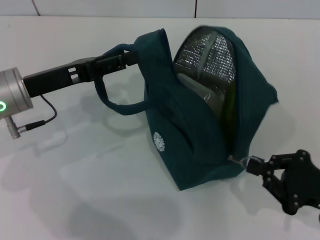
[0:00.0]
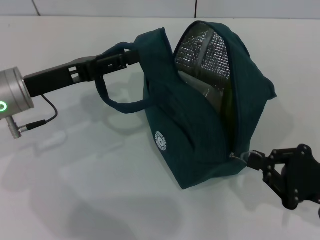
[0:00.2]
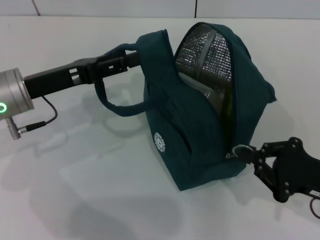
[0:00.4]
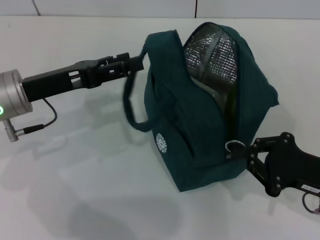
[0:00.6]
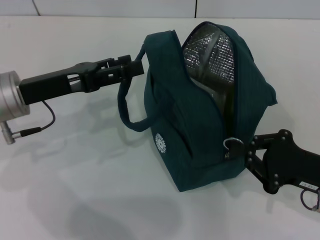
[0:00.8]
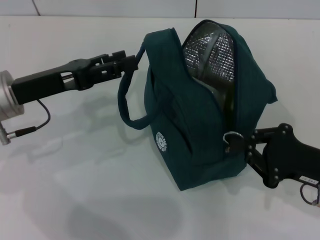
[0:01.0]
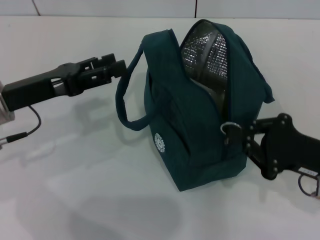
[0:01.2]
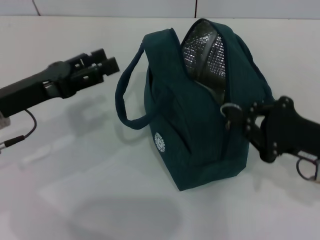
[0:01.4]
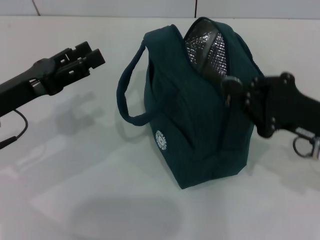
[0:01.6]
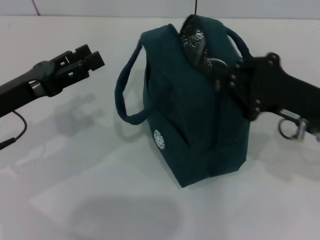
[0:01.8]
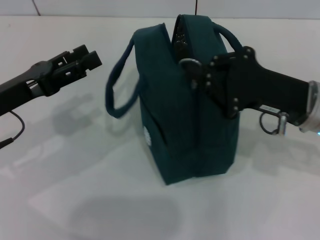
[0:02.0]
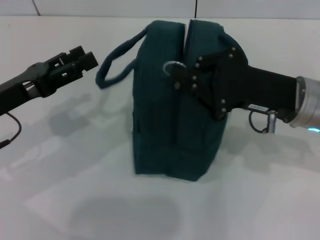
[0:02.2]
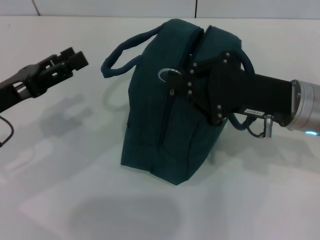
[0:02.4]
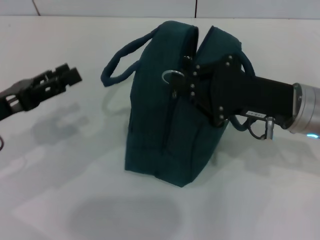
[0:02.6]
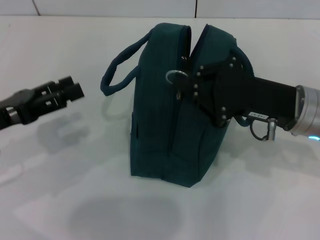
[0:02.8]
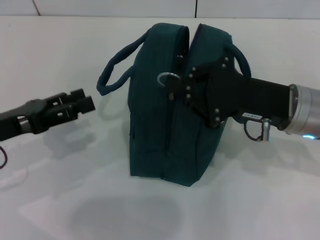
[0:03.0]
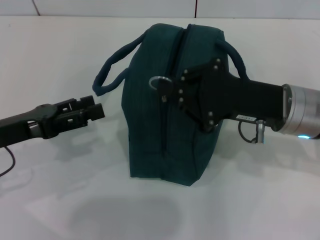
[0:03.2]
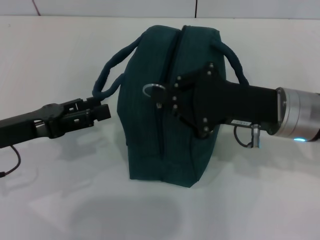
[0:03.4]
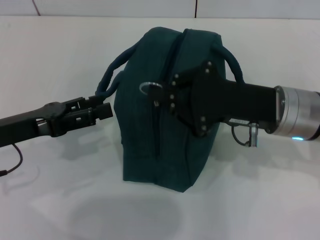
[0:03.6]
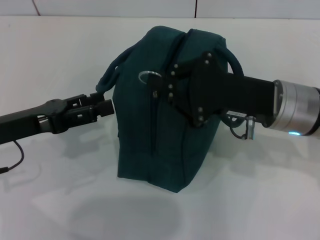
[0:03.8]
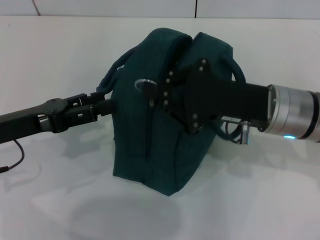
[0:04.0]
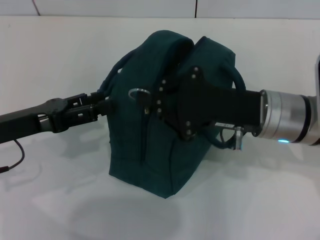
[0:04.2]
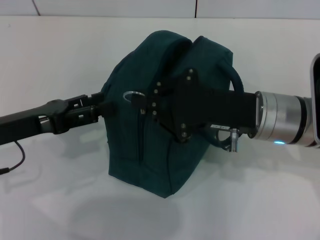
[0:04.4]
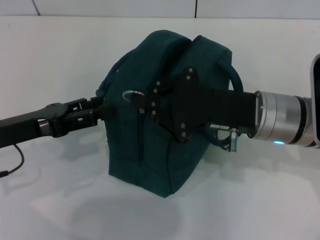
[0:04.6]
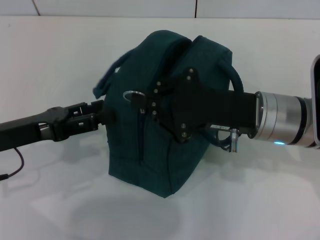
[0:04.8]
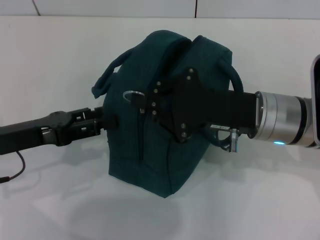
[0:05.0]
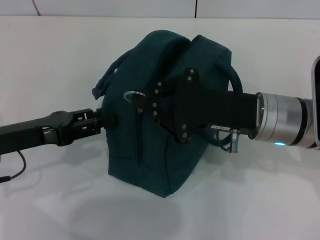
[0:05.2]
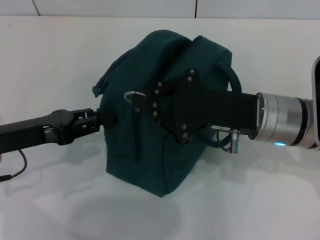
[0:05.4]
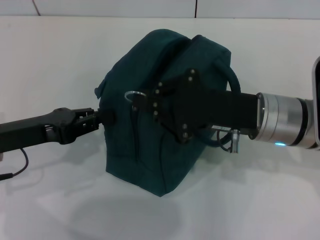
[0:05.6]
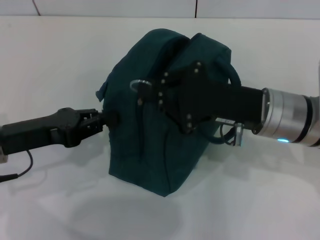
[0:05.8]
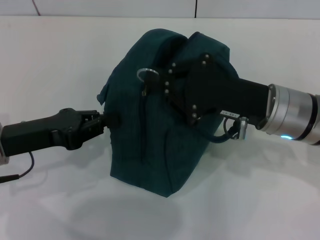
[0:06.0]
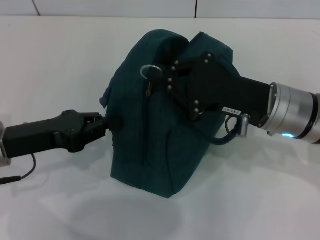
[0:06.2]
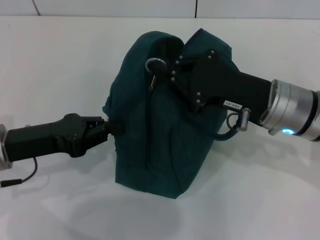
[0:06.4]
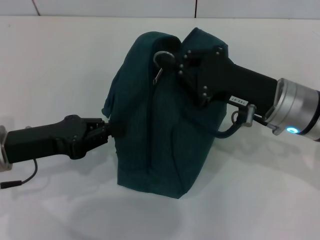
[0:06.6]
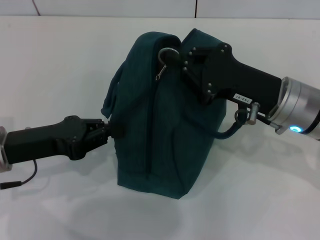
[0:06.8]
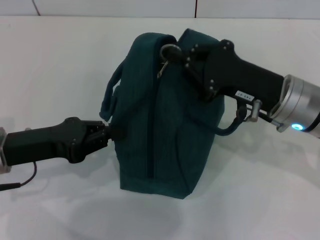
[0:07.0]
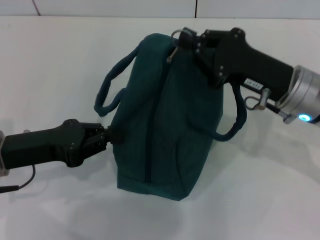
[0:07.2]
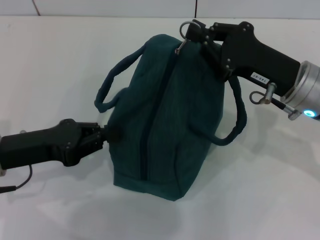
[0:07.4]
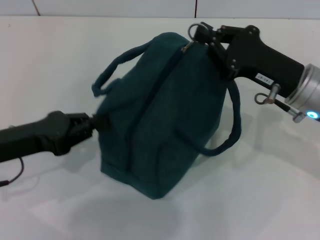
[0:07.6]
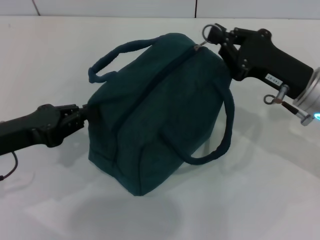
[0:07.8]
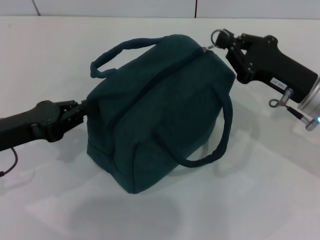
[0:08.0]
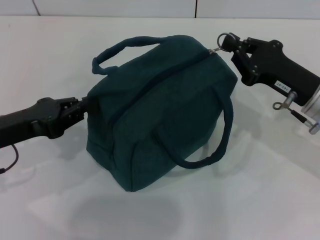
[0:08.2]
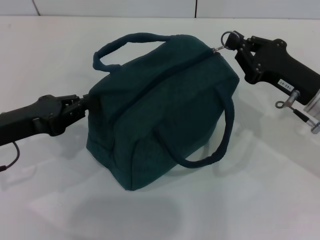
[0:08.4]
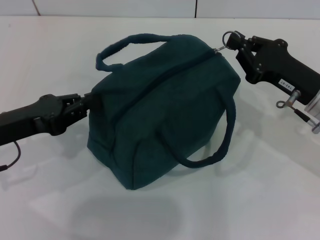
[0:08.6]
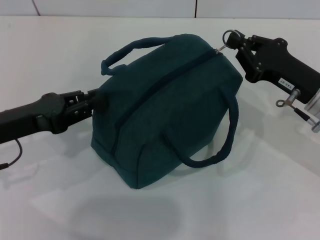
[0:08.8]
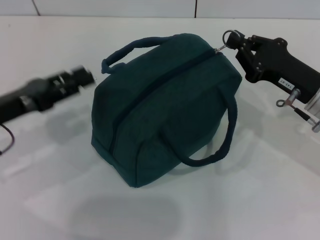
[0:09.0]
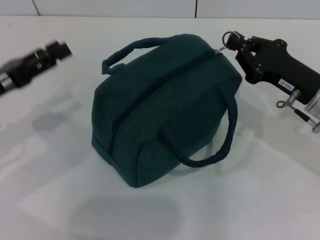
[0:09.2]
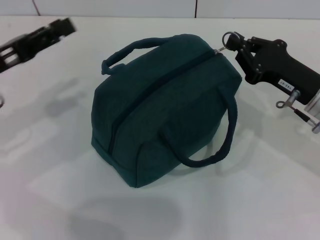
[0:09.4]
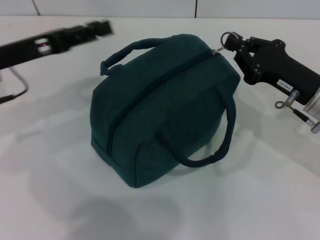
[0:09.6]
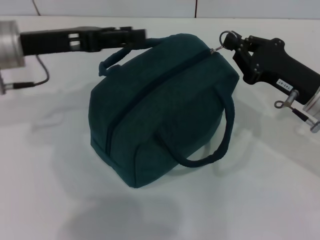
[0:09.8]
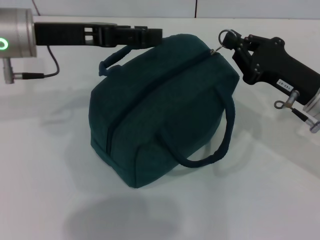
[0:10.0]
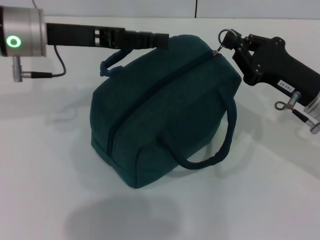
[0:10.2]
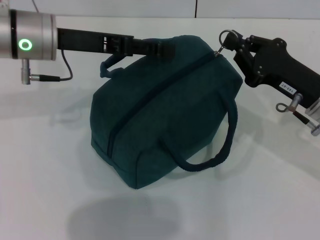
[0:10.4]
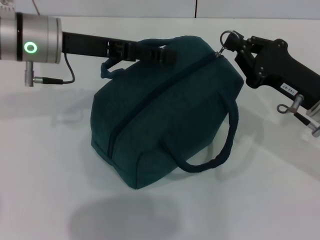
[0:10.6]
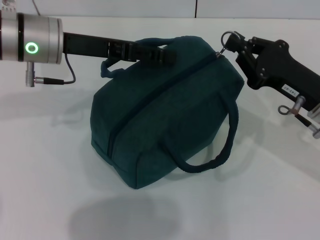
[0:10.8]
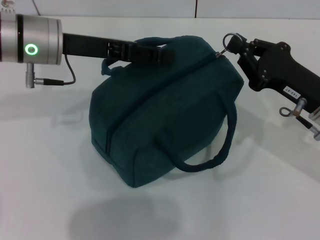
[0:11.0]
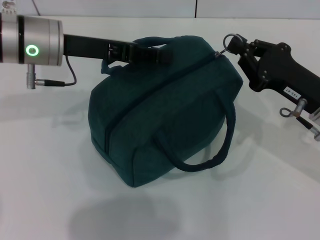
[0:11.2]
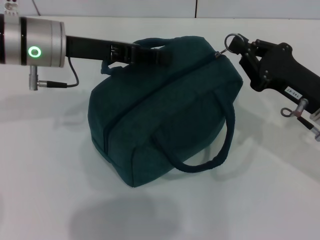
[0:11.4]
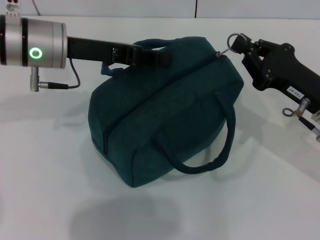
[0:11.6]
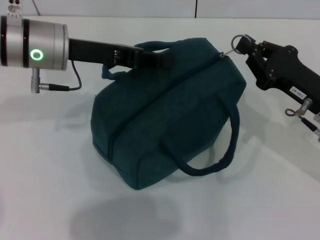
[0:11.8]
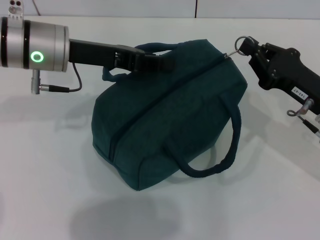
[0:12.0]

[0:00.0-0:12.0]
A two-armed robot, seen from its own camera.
0:00.0 to 0:01.6: The left gripper shifts by roughly 5 cm; the right gripper heads forward and upward, covering some 10 cm.
0:01.6 to 0:03.0: The right gripper goes roughly 5 cm to the left.
0:03.0 to 0:04.4: The grippers make only small movements.
0:04.4 to 0:06.0: The left gripper closes up.
0:06.0 to 0:07.6: The right gripper changes place by roughly 5 cm.
0:07.6 to 0:09.0: The left gripper opens.
0:09.0 to 0:10.4: The left gripper is displaced forward, to the right and upward by some 15 cm, and opens.
0:10.4 to 0:12.0: The left gripper closes up.

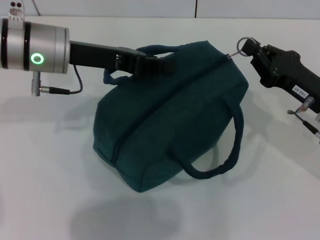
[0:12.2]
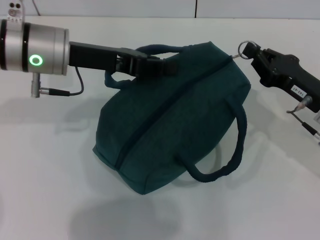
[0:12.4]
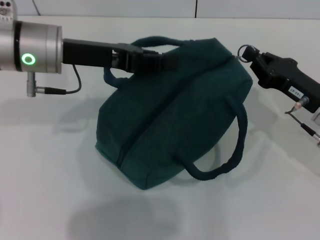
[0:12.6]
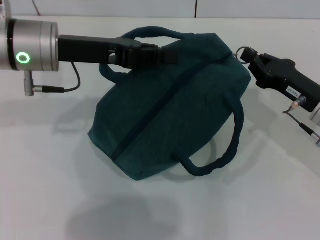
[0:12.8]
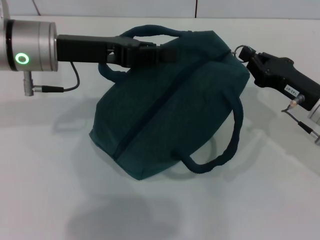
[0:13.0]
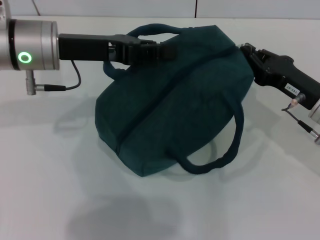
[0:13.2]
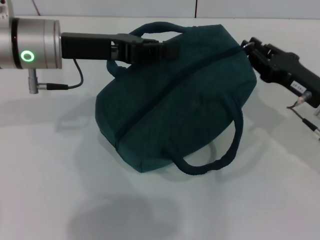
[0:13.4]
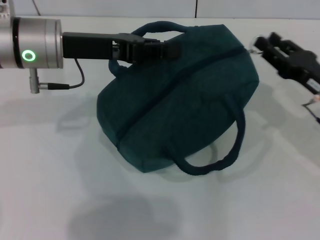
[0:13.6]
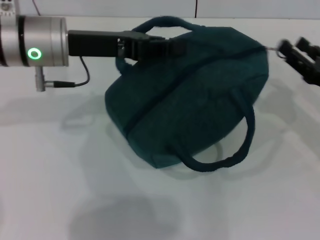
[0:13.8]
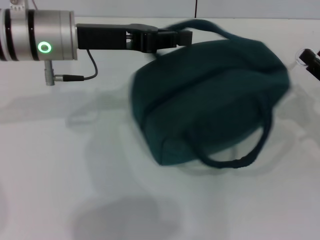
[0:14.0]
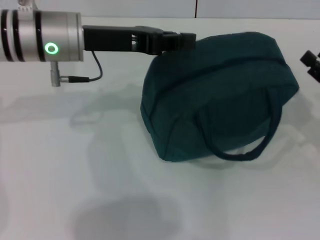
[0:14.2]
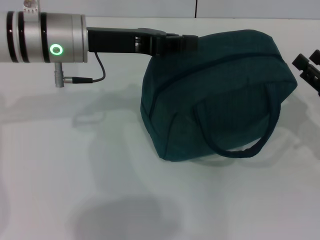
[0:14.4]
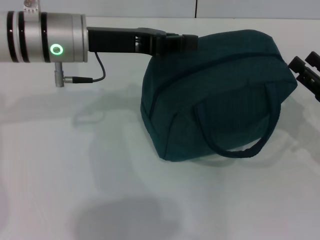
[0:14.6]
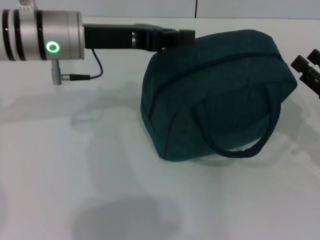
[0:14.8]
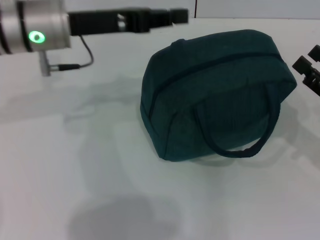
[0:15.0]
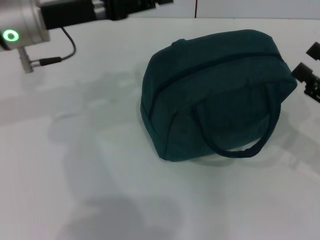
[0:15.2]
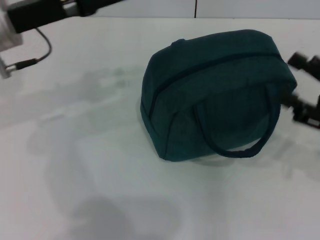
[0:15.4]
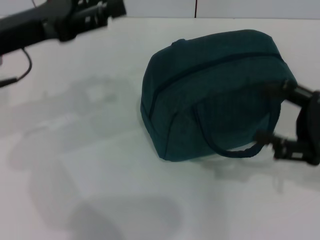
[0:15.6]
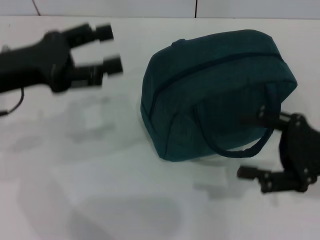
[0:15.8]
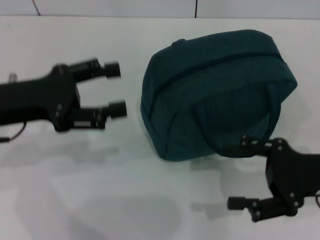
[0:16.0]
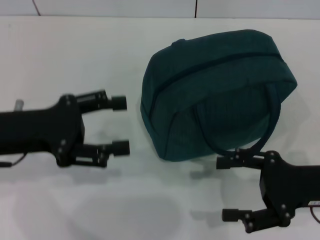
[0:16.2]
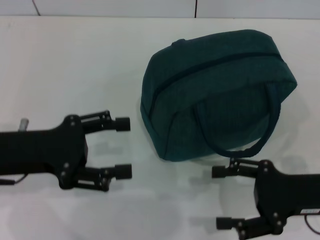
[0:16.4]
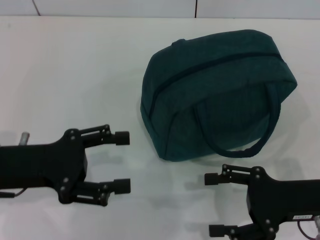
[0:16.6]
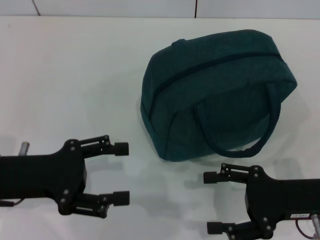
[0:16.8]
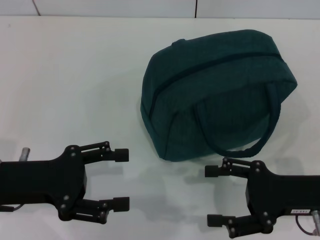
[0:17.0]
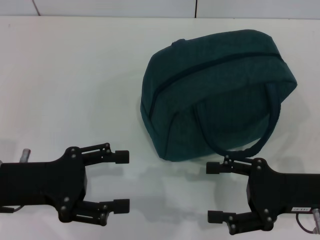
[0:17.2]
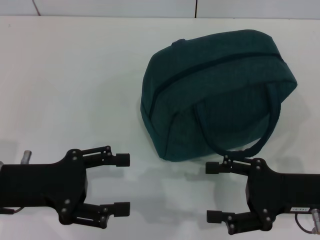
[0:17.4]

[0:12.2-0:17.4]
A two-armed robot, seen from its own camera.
Step, 0:14.2 to 0:14.8: Hold the lunch bag with your left hand.
0:12.2 to 0:14.0: The right gripper travels to the right by roughly 10 cm, and opens.
0:14.0 to 0:15.6: The left gripper goes roughly 10 cm to the left, and opens. The right gripper moves about 5 cm.
0:15.6 to 0:17.4: The left gripper is displaced backward and downward by about 15 cm, and opens; the right gripper ends up about 5 cm from where it was.

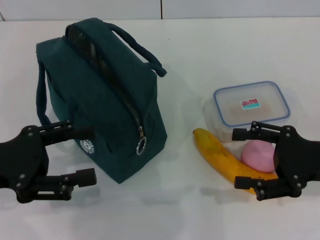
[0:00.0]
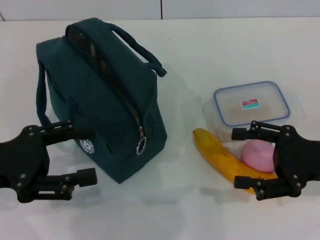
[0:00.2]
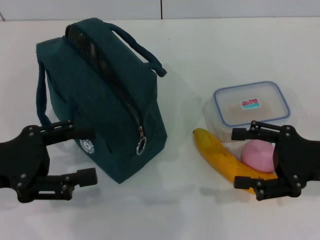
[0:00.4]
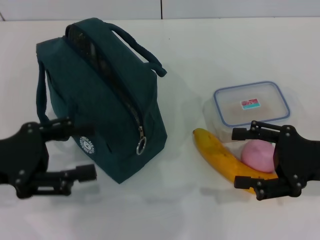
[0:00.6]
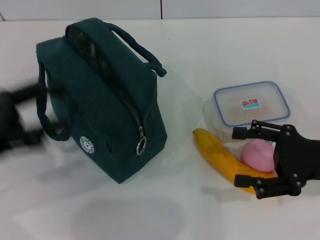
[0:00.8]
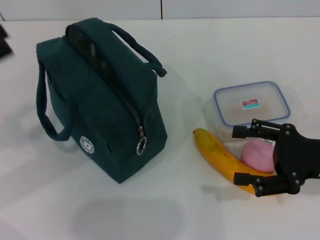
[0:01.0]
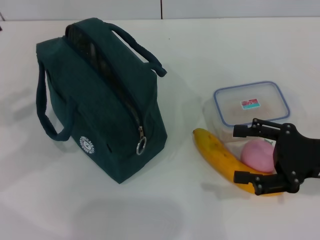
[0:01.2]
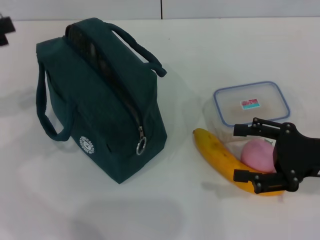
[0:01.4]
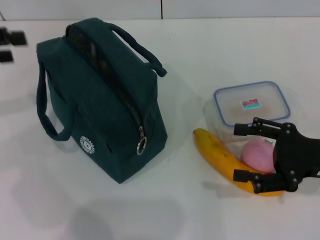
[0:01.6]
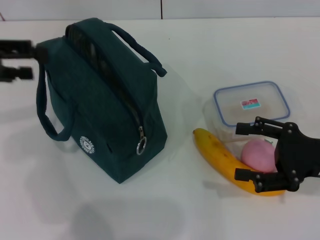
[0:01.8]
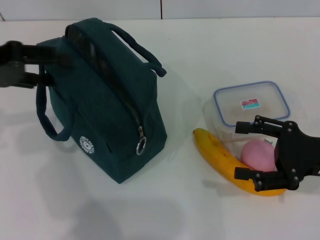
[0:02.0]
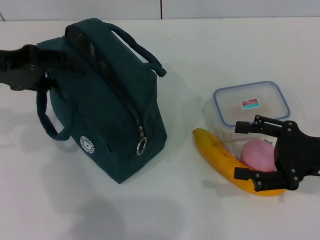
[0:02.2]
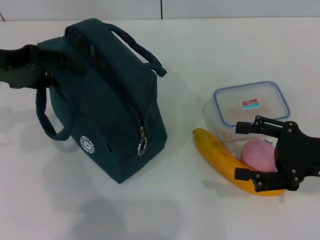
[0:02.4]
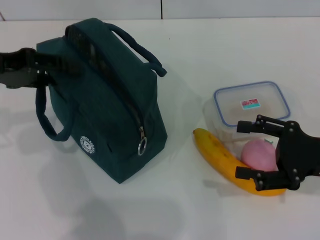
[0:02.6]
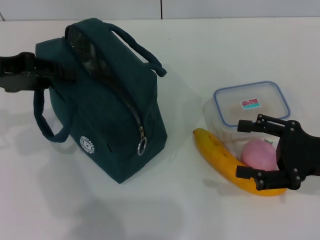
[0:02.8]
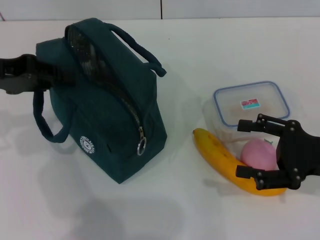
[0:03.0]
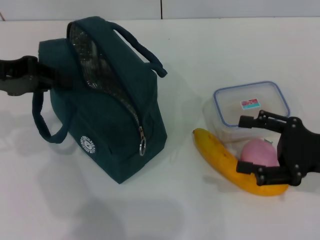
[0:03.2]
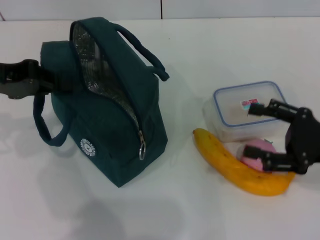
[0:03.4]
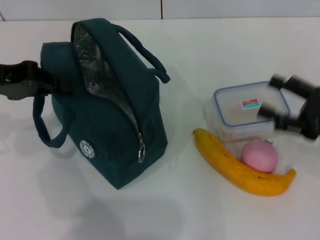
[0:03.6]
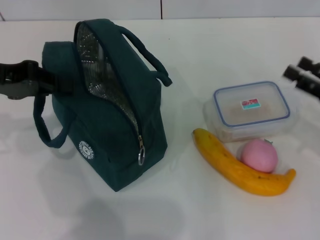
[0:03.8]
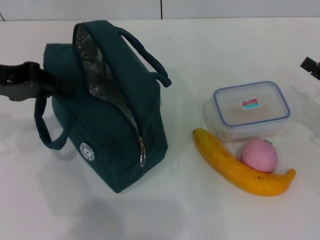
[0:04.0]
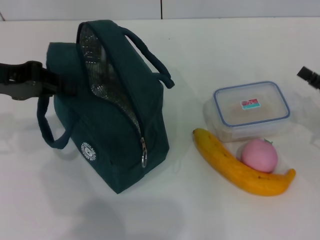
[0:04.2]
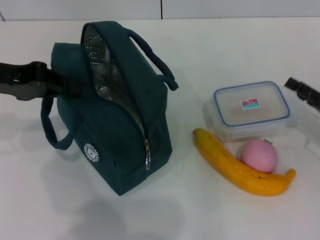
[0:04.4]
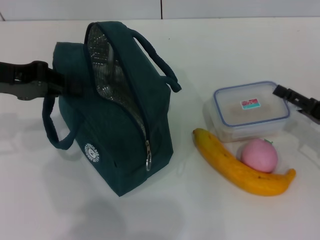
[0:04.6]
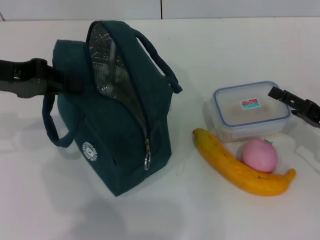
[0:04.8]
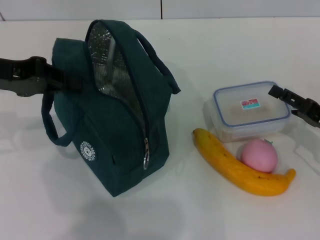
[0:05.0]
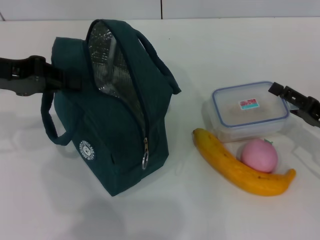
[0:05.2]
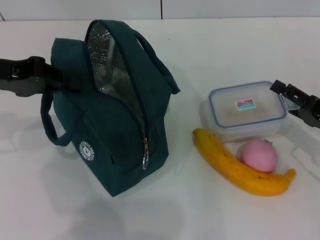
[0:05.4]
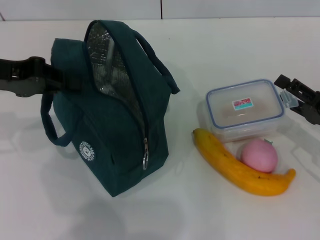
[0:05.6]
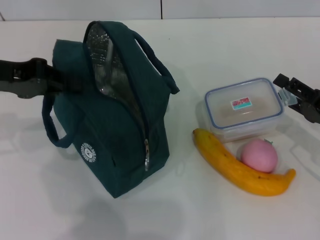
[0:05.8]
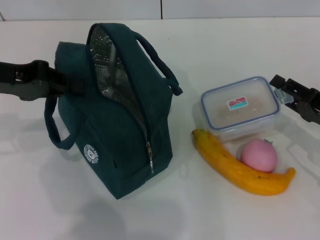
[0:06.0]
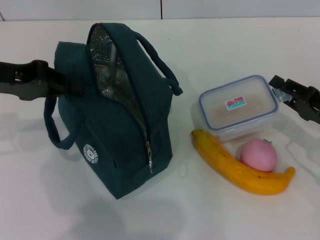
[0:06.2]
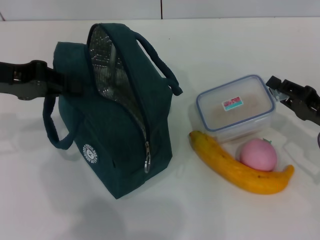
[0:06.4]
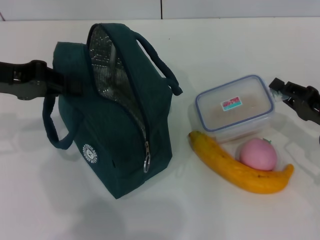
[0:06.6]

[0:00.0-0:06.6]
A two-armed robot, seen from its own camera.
Step, 0:00.0 to 0:03.2: Hold the lunch bag with your left hand.
Step, 0:03.4 to 0:06.6: Pick up the lunch box with your right hand.
0:00.0 to 0:01.6: The left gripper moves forward, upward and to the left, approximately 15 cm.
0:01.6 to 0:03.2: The left gripper shifts some 5 cm to the right, and closes its fingers.
0:03.2 to 0:05.0: The right gripper moves downward, about 5 cm.
0:05.0 to 0:06.6: The right gripper closes.
